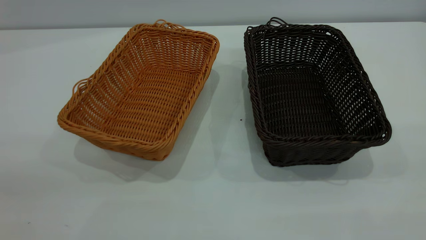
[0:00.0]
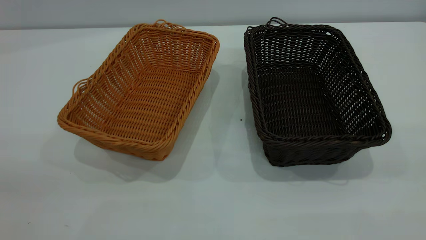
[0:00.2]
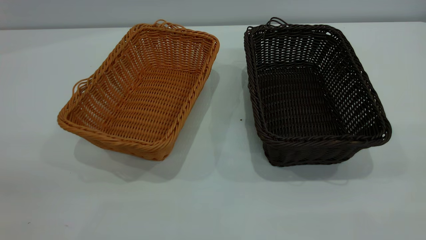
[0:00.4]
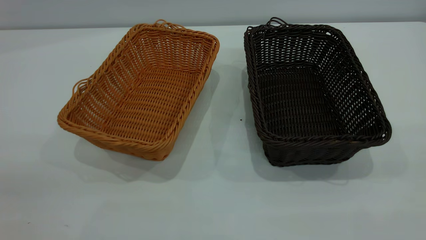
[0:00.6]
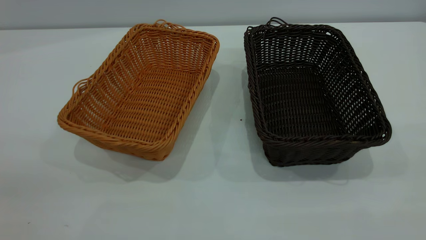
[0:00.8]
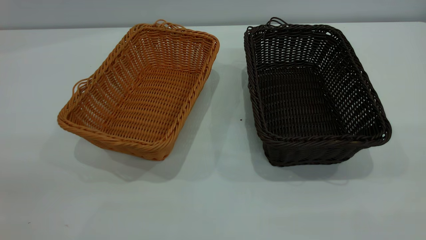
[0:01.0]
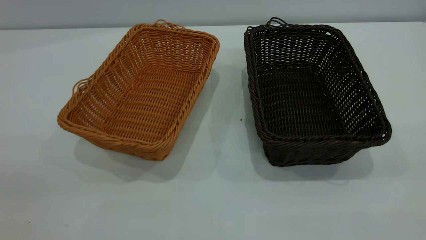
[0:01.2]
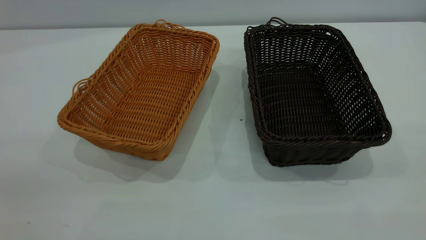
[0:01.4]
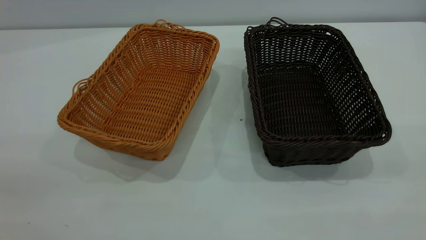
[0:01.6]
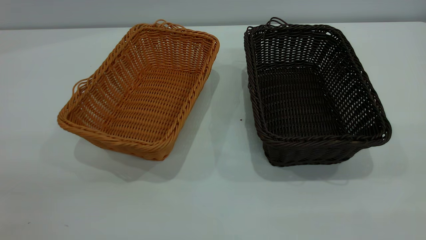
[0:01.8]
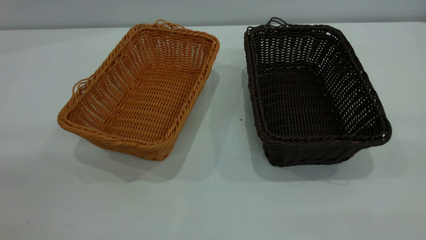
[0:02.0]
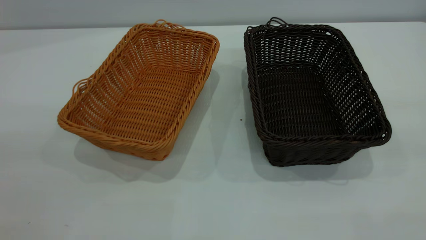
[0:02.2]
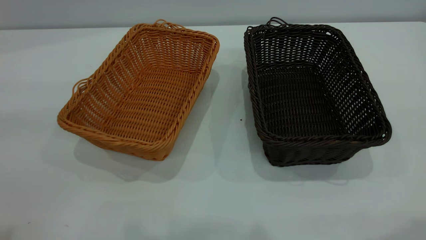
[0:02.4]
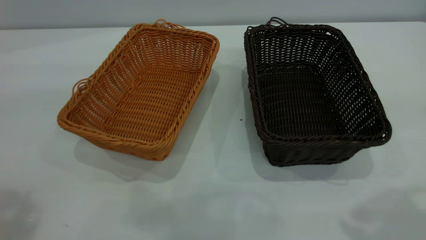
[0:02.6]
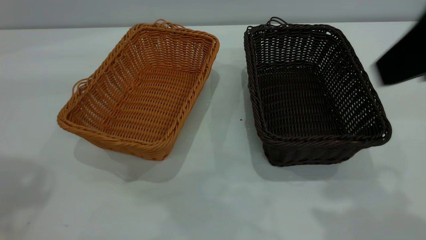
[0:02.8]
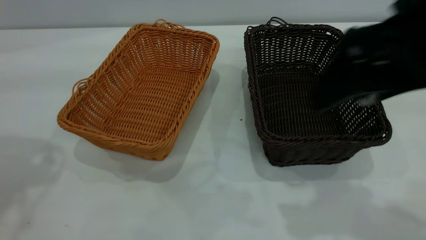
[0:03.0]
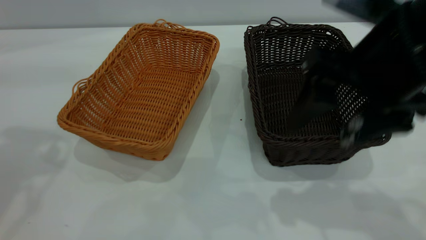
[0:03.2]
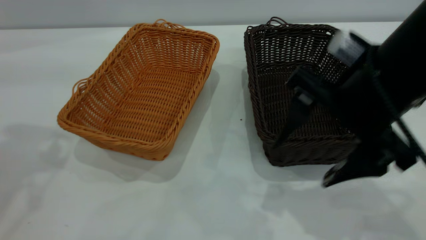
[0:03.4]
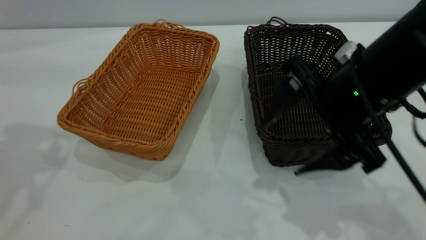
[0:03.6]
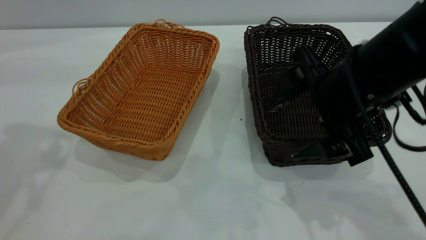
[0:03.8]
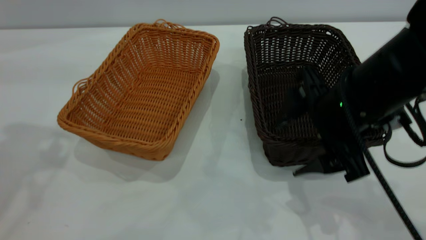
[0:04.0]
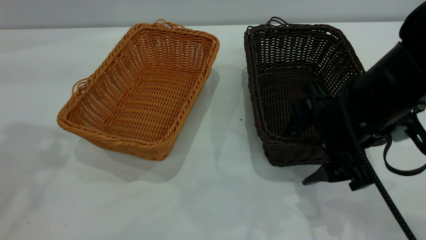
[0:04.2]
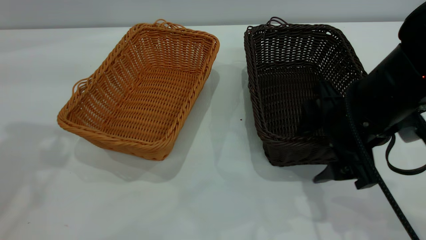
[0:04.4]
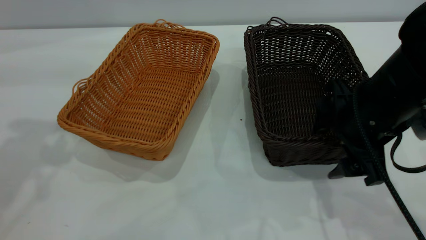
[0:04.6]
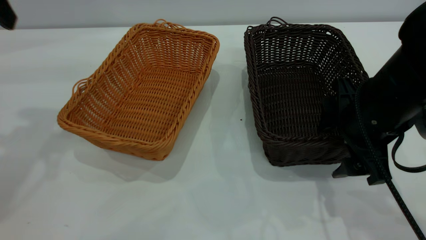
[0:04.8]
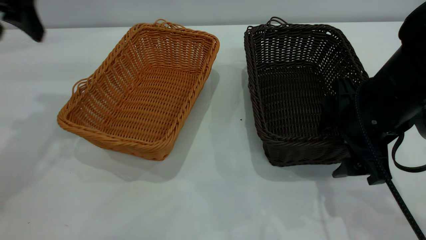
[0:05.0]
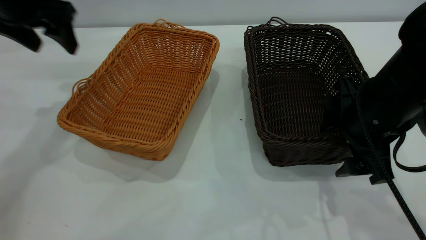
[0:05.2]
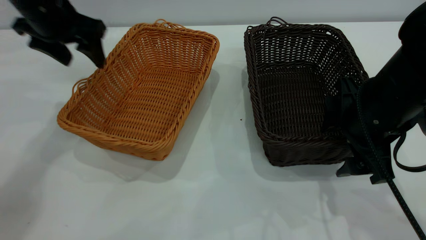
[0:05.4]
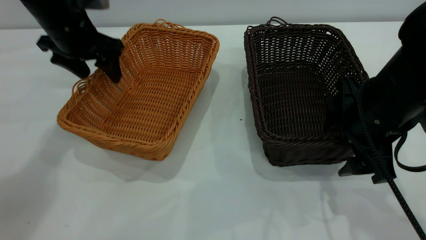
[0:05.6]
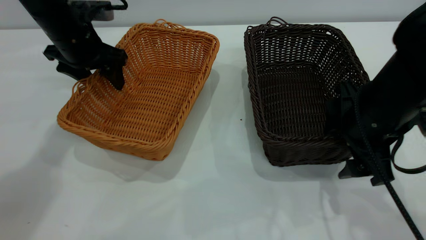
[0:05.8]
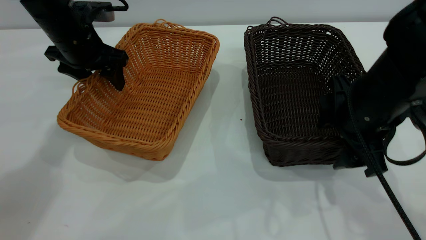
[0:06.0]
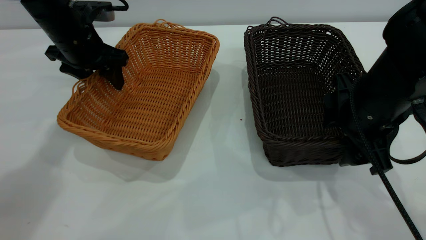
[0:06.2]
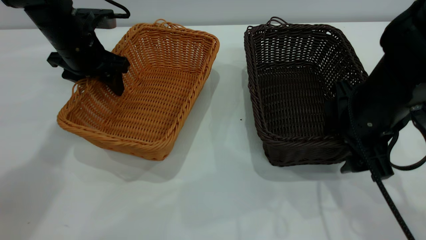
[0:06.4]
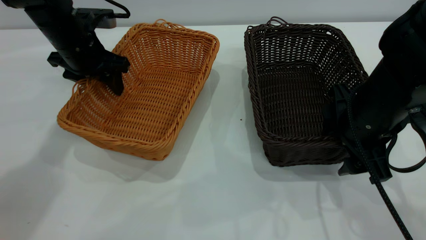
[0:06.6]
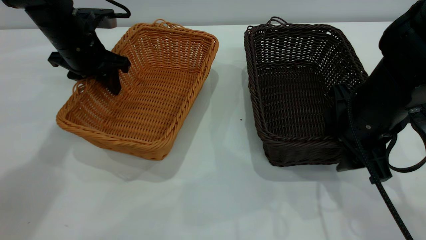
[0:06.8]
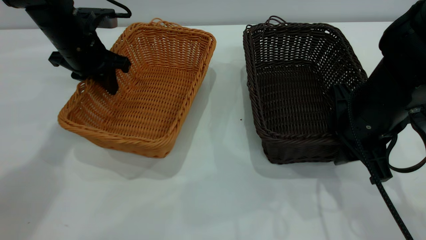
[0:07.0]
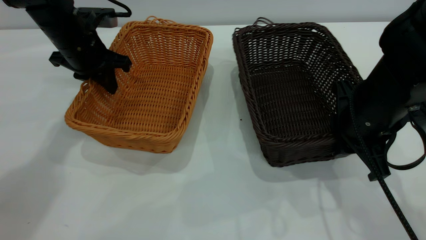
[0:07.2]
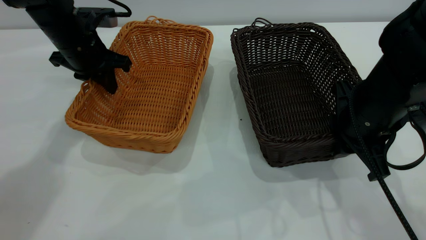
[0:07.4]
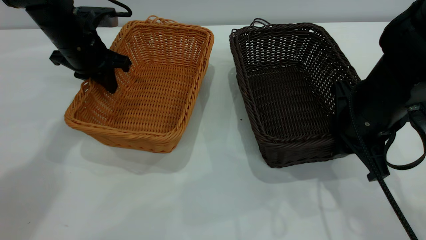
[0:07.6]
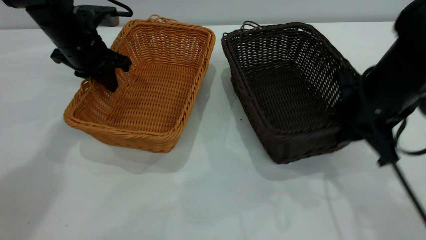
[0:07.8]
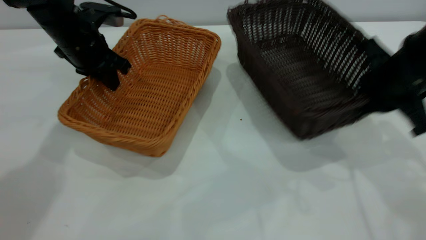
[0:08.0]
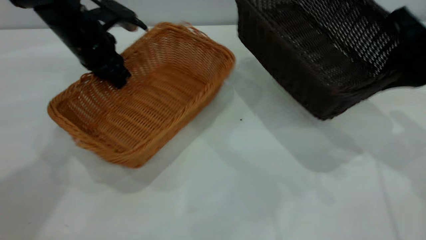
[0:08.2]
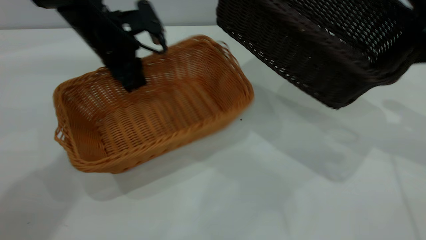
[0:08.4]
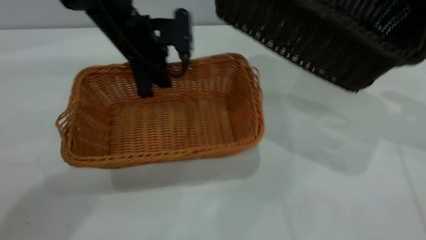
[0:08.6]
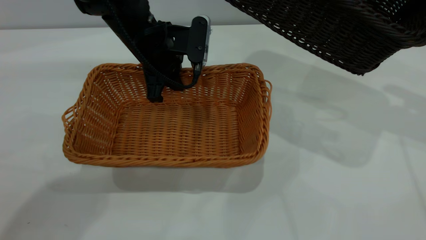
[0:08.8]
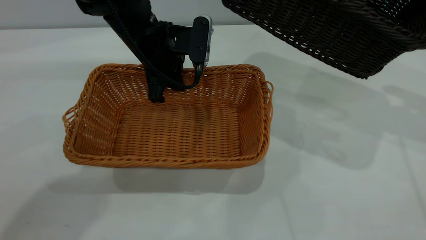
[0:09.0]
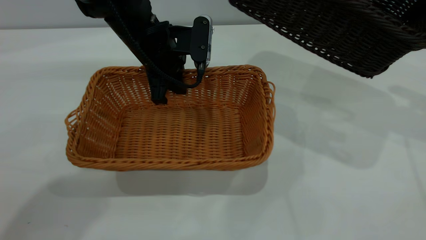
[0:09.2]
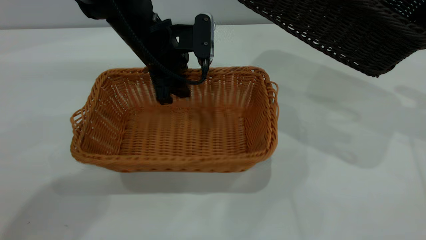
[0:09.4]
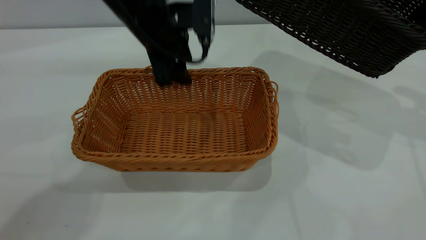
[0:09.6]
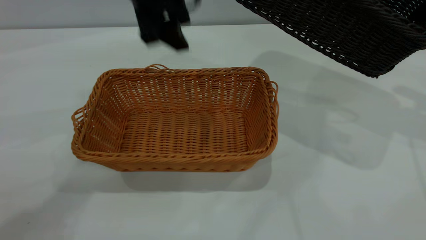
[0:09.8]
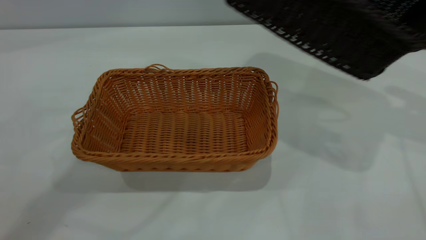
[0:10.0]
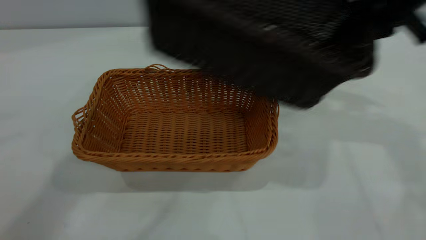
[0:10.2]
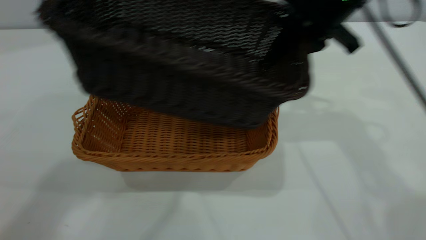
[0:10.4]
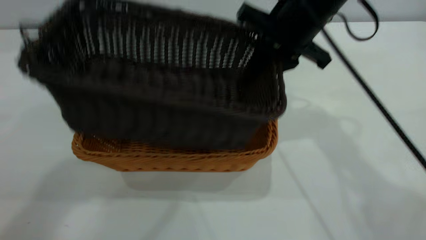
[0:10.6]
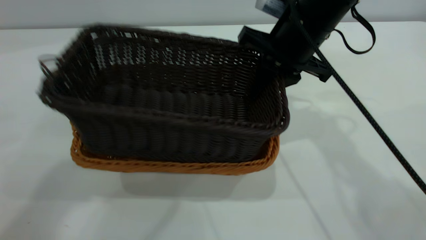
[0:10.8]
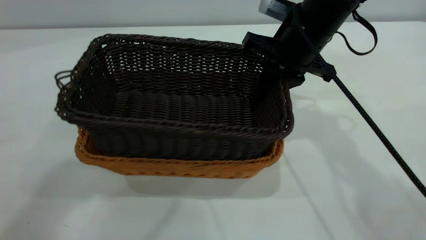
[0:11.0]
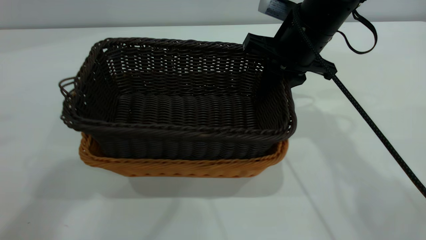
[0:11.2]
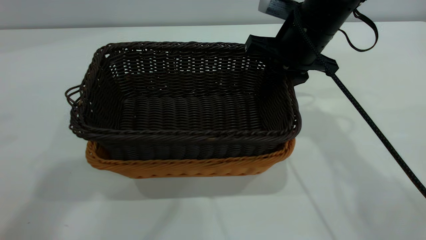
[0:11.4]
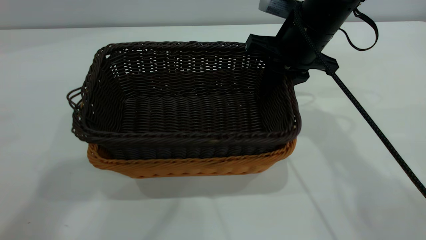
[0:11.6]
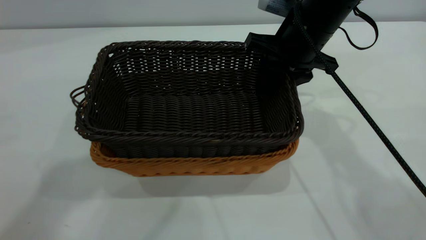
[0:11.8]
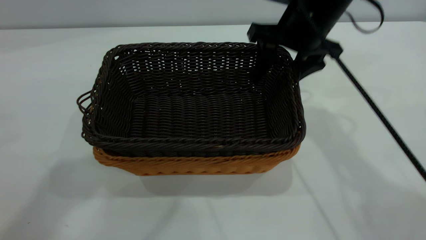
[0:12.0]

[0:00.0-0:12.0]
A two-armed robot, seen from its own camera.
Task of the whole recording: the left gripper grasp the brown basket and place it in the center of the table, the right gripper grasp the black basket and place it inside the brown one.
Step, 0:00.0 to 0:08.0: Pick up the light basket with the right gripper.
Step, 0:08.4 to 0:09.8: Place the light-colored basket in the center.
0:00.0 to 0:01.6: Both grippers stay put.
0:01.6 to 0:03.0: The right gripper goes approximately 25 cm forward, to the left and downward.
0:03.0 to 0:04.4: The right gripper moves downward, about 15 cm.
0:04.4 to 0:06.0: The left gripper goes about 25 cm downward and forward.
0:06.0 to 0:07.6: The right gripper closes up. Meanwhile the left gripper closes.
0:07.6 to 0:09.0: The right gripper travels upward, to the right and forward by some 20 cm, while the left gripper is displaced to the right by roughly 10 cm.
0:09.0 to 0:10.4: The left gripper goes about 35 cm upward, and opens, while the right gripper moves to the left, some 20 cm.
0:10.4 to 0:12.0: The right gripper opens up.

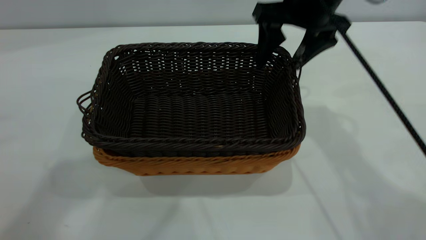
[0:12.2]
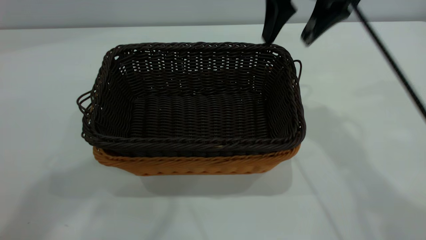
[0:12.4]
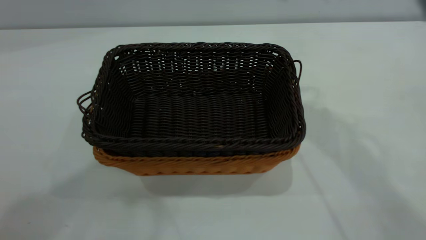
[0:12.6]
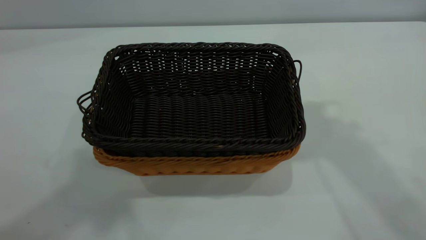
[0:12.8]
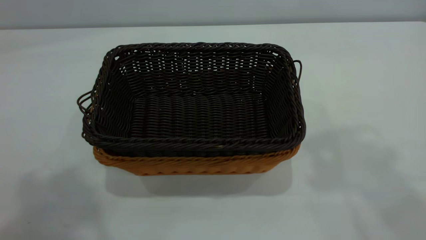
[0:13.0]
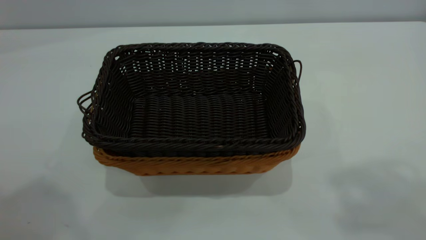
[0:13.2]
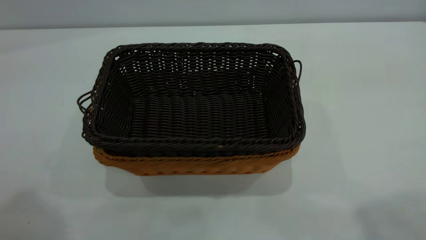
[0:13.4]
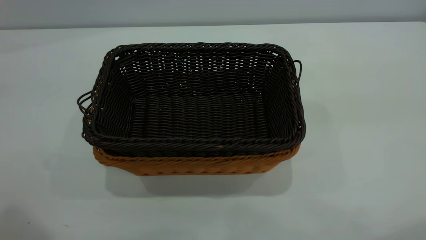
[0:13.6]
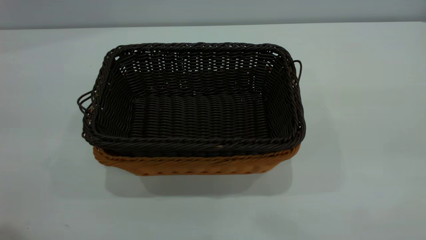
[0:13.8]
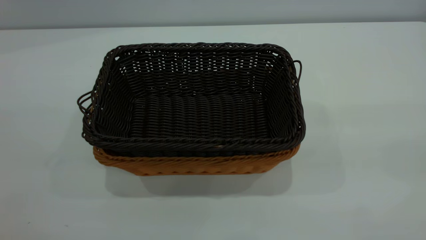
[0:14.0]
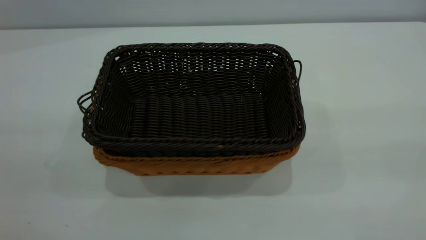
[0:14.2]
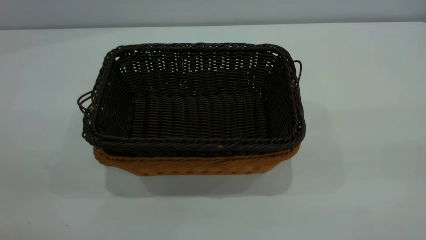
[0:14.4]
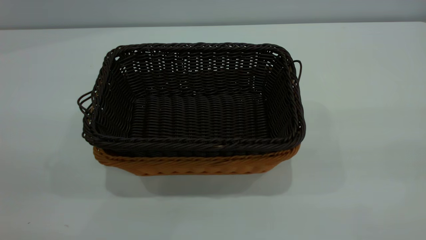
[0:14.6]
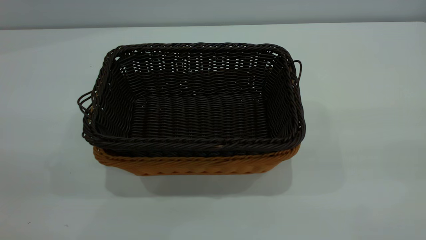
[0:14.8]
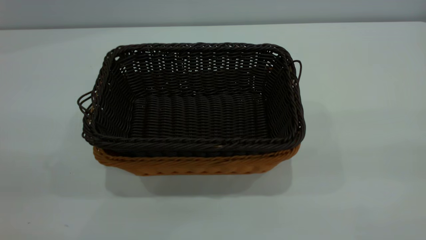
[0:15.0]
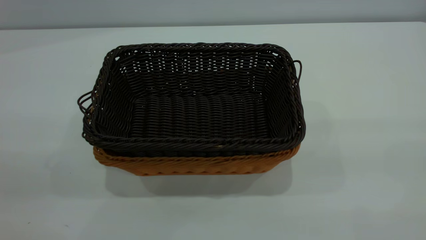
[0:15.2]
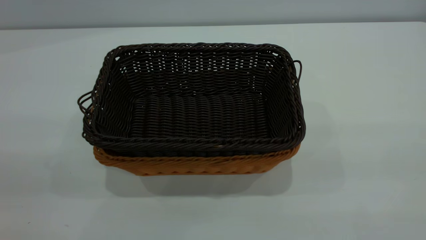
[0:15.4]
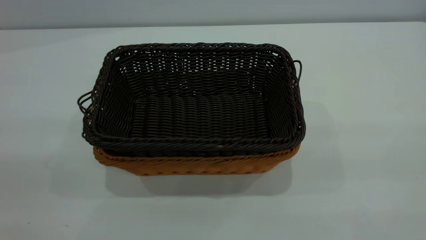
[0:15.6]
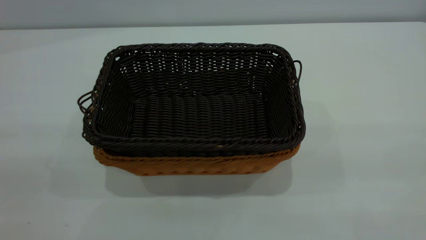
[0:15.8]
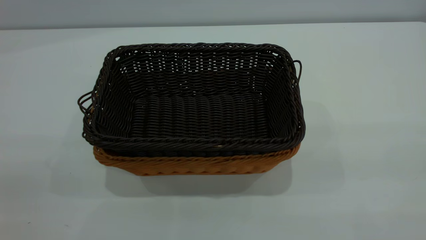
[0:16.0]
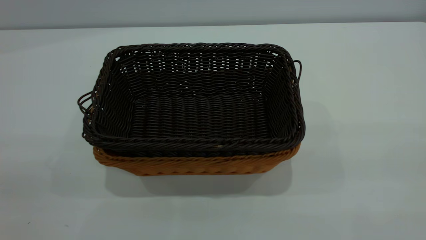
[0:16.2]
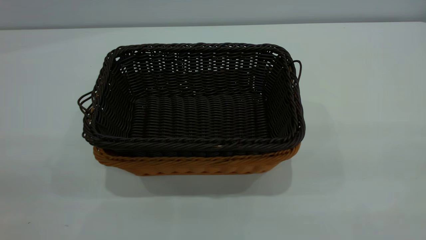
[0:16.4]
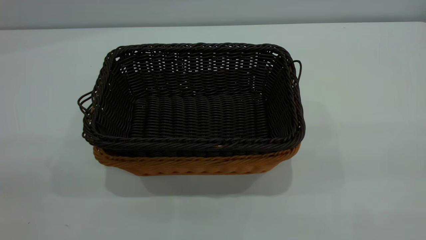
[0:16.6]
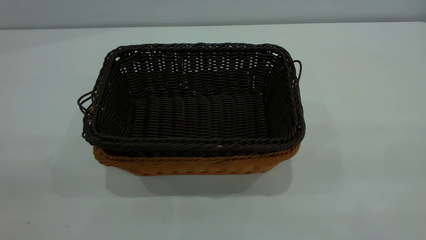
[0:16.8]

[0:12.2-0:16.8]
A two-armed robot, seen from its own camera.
Task of the whole recording: the left gripper grasp the brown basket and place it in the center of the table, the right gripper grasp the black basket and place it inside the brown one.
0:12.2 to 0:13.8: The right gripper moves backward, upward and to the right, approximately 35 cm, while the left gripper heads backward and to the left, covering roughly 25 cm.
